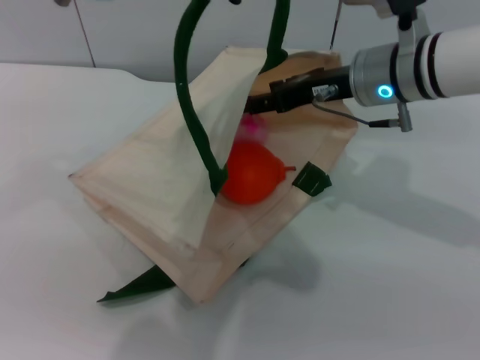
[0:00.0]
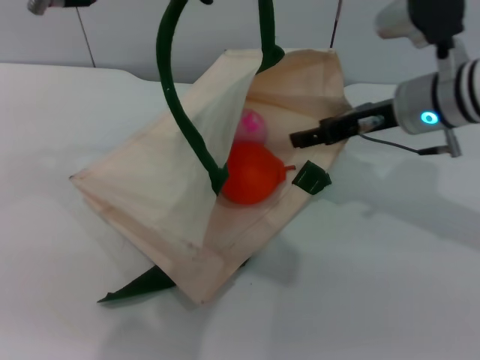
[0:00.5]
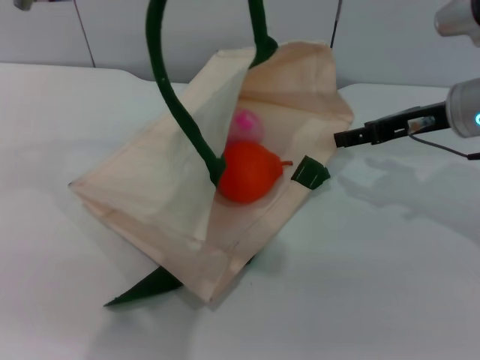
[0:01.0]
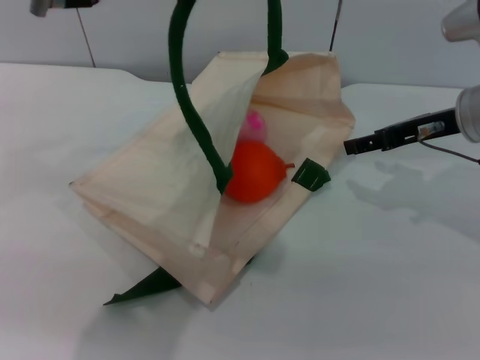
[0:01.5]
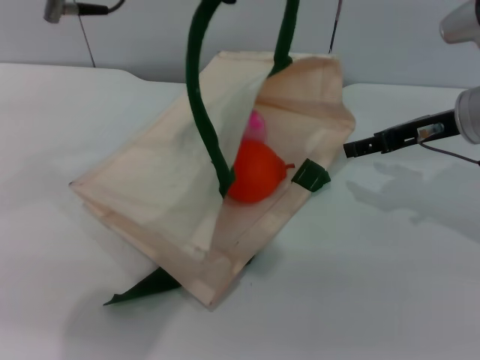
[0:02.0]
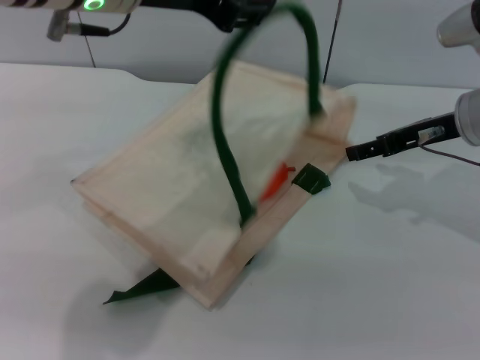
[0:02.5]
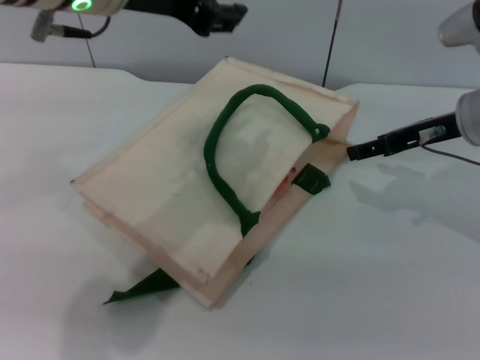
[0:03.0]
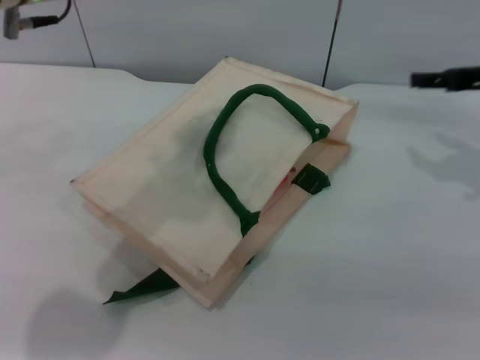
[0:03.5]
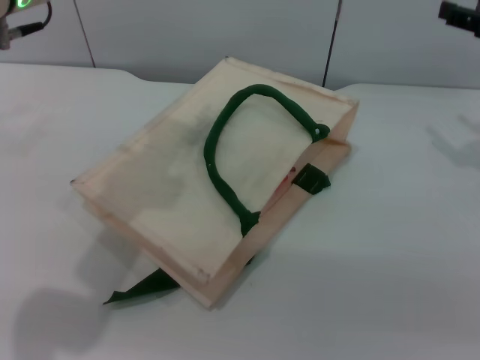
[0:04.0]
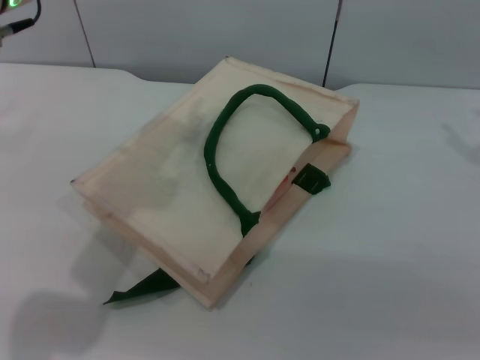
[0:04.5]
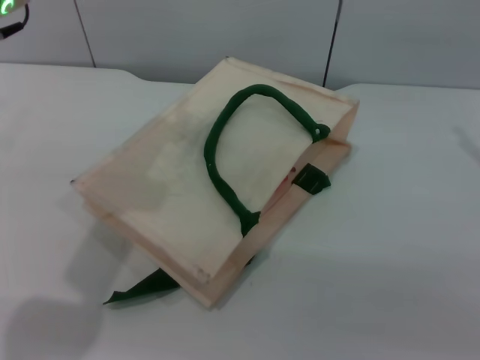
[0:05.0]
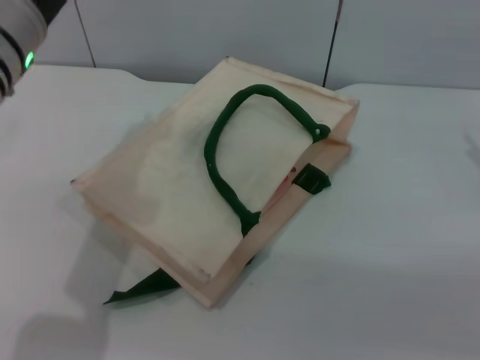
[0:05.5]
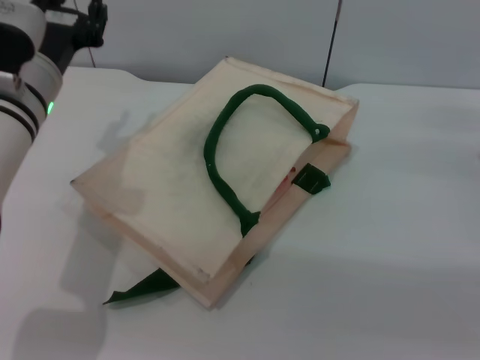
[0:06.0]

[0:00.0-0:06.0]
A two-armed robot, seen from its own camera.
Task of the whole recording: pick up the orange and peach from the table and place it in the white handbag.
Step, 0:01.5 to 0:03.5: Lower the woven bag with the left gripper to close it.
0:00.0 to 0:02.0: The left gripper opens its fingers. The right gripper heads to the right, covering some 10 cm.
0:02.0 to 0:04.0: The left gripper goes some 5 cm to the left. Meanwhile the right gripper shifts roughly 10 cm to the right.
0:04.0 to 0:06.0: The left gripper heads downward, covering roughly 15 cm.
